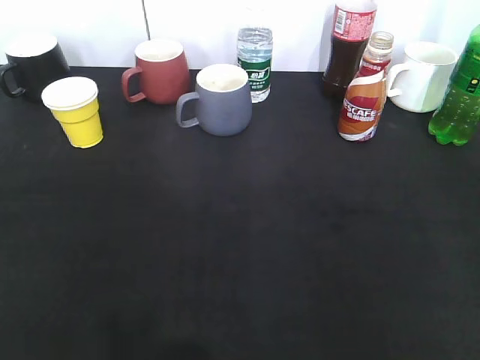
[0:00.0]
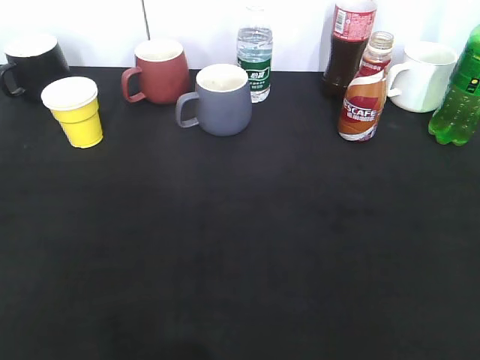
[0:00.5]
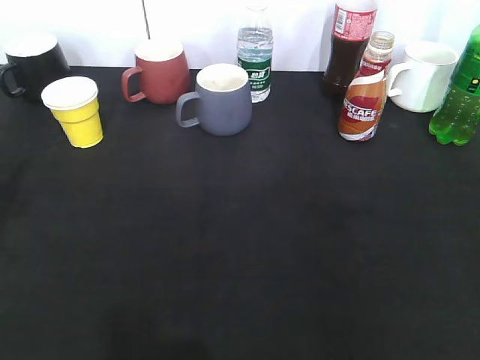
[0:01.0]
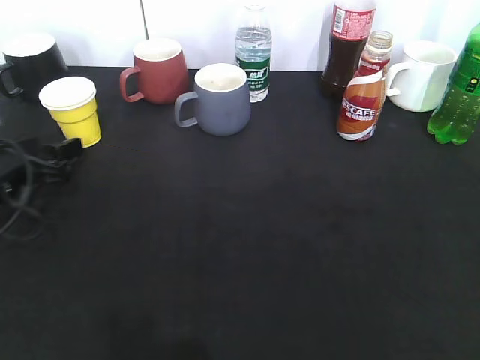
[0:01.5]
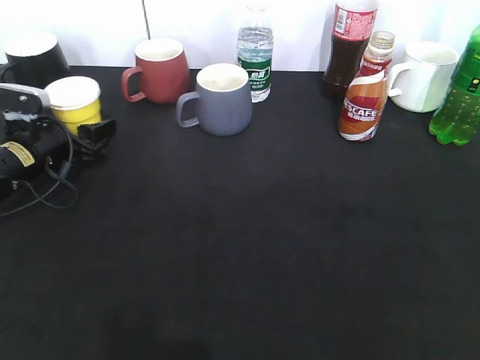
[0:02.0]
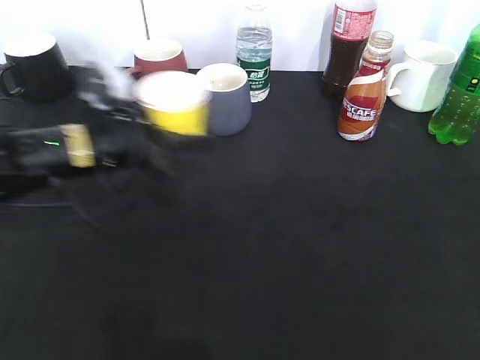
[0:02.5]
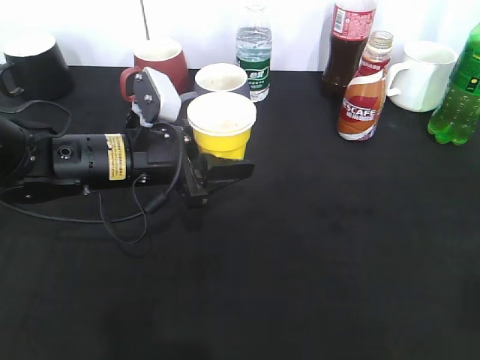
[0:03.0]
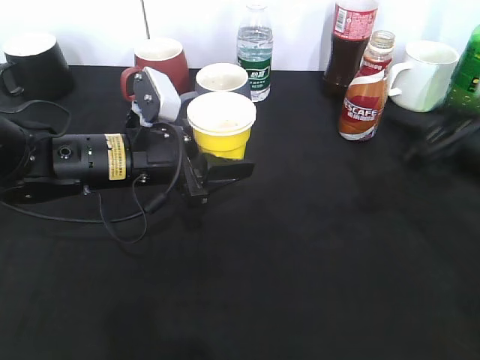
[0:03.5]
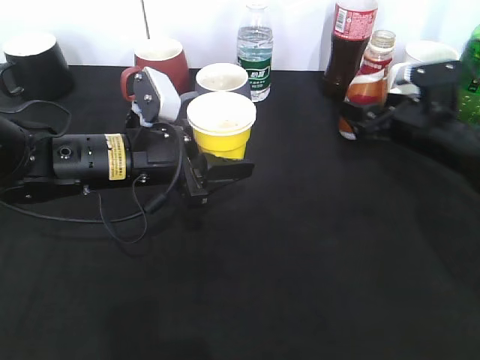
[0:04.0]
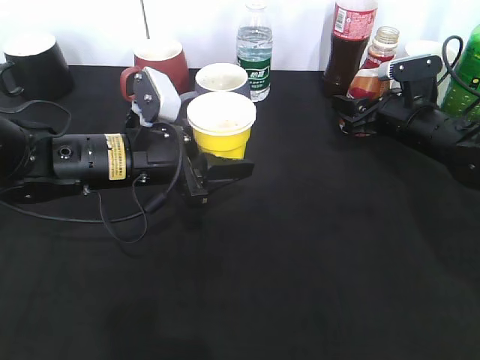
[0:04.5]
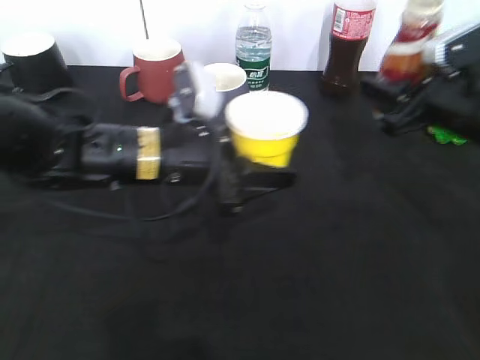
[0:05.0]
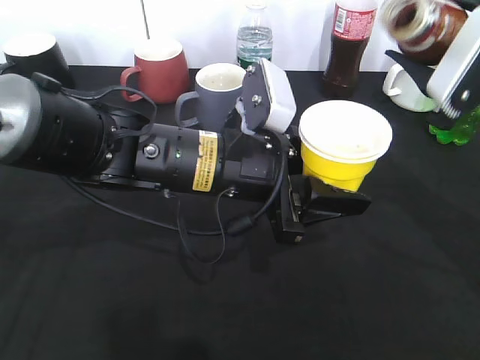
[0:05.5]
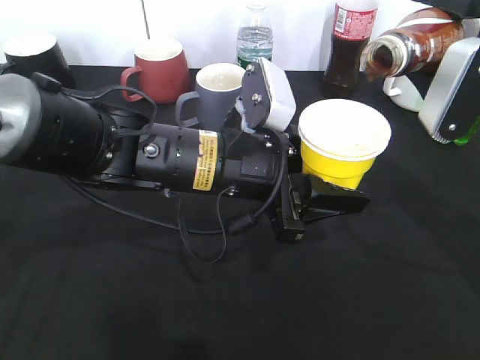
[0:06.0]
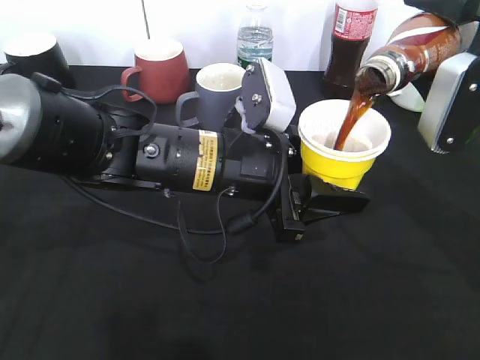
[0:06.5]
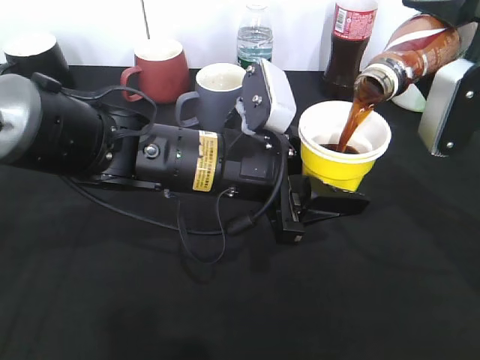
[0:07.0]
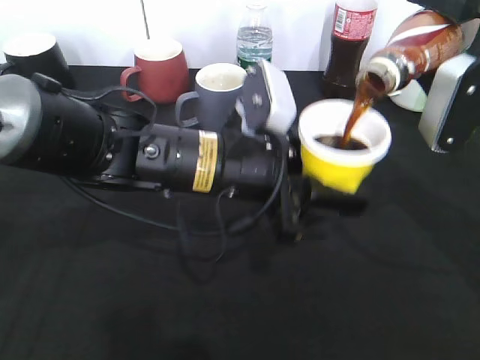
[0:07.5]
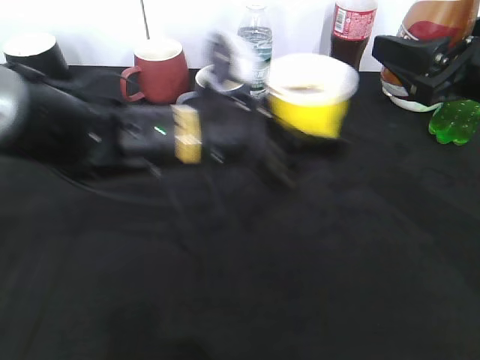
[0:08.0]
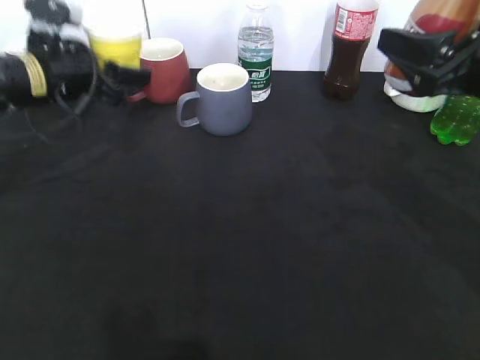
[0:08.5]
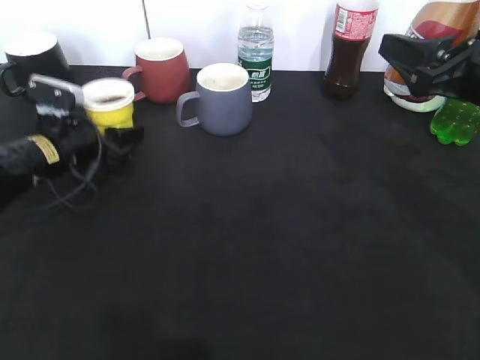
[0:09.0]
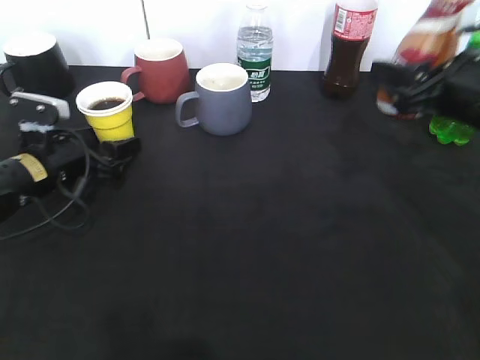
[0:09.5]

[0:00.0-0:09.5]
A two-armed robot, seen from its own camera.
Step, 0:00.0 to 0:02.0: Grasp the yellow paper cup with left gripper.
Step, 0:03.0 to 0:04.5: Grasp the bottle with coffee with right gripper.
Step, 0:05.0 to 0:07.5: Pour the coffee from bottle to cup with right gripper.
0:00.0 to 0:02.0: The left gripper shifts roughly 40 cm forward and downward, and opens up.
0:02.0 to 0:04.0: The right gripper shifts approximately 40 cm forward and downward, and opens. Meanwhile the left gripper travels to the right and backward by roughly 15 cm.
0:04.0 to 0:05.5: The left gripper goes approximately 10 cm to the right and backward, while the right gripper goes some 20 cm upward and backward, and closes its fingers.
0:07.5 to 0:09.5: The left gripper heads to the left, covering about 25 cm, and opens its fingers; the right gripper moves downward, approximately 5 cm.

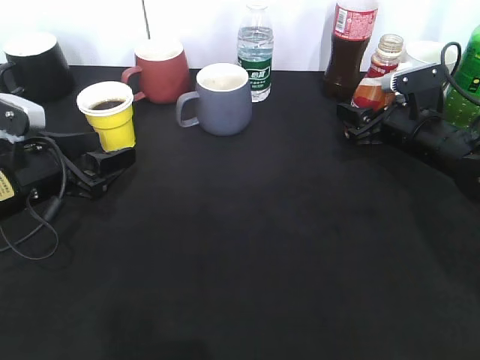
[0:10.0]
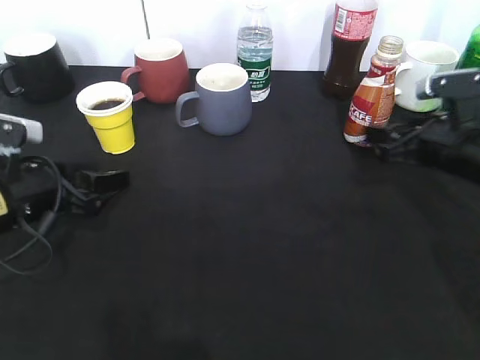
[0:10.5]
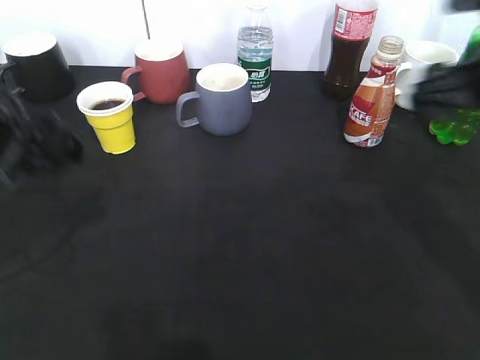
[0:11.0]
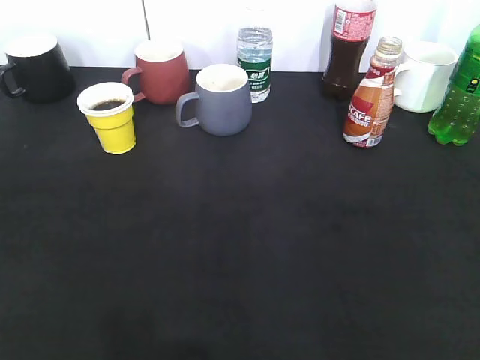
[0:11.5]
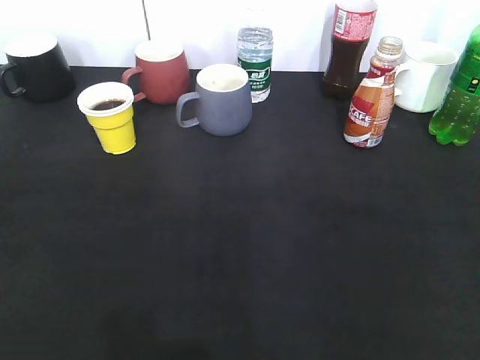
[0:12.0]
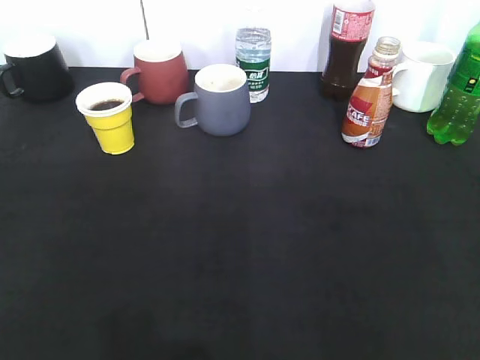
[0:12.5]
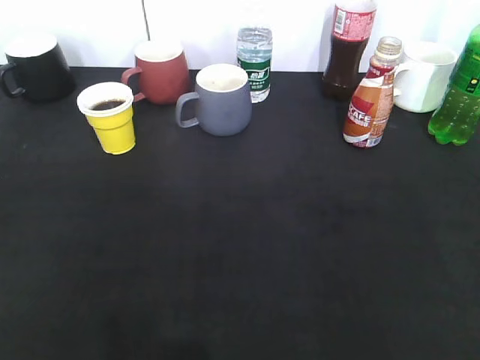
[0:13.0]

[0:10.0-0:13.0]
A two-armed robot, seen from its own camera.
Step, 0:10.0 to 0:10.5: Place the coffee bottle on the table with right gripper.
0:10.0 to 0:11.5: The grippers both shift backward and upward by roughly 40 cm. The right gripper opens up.

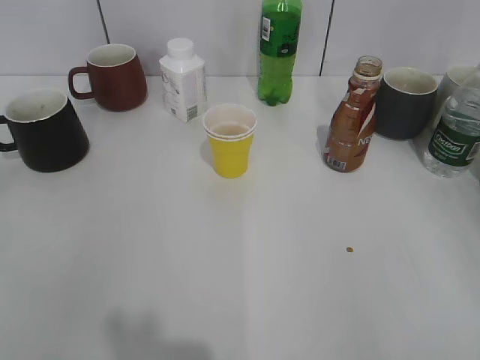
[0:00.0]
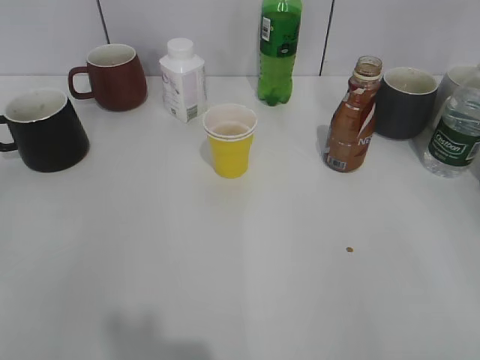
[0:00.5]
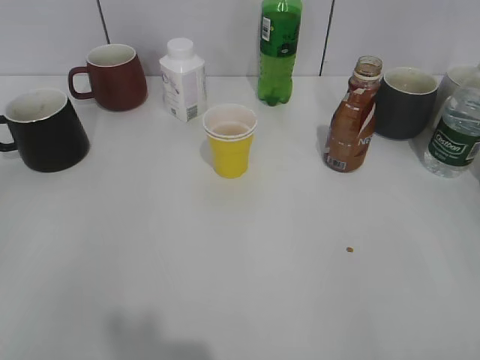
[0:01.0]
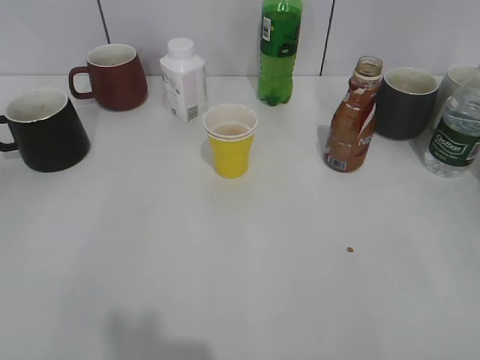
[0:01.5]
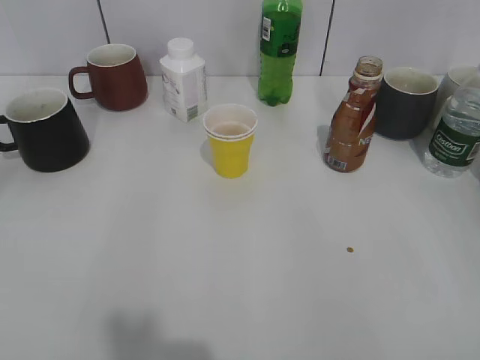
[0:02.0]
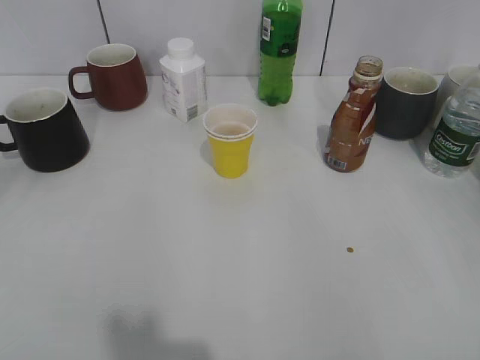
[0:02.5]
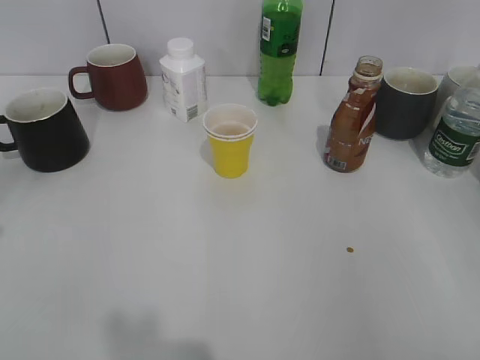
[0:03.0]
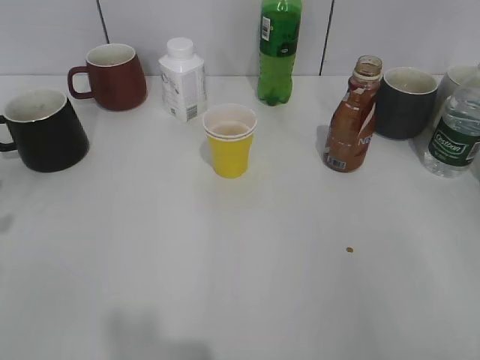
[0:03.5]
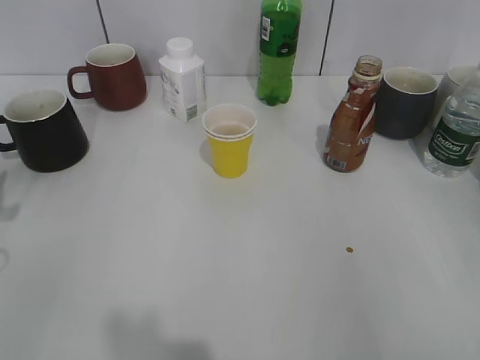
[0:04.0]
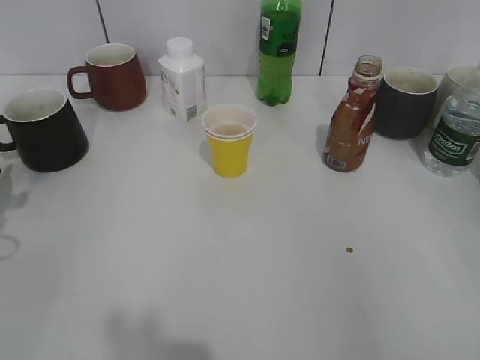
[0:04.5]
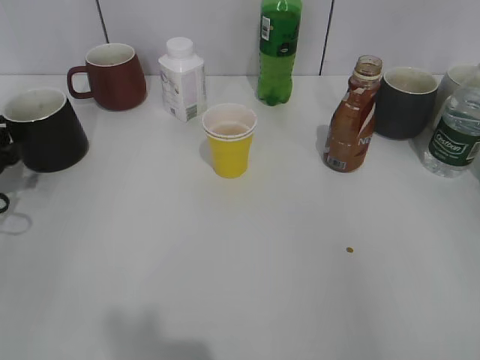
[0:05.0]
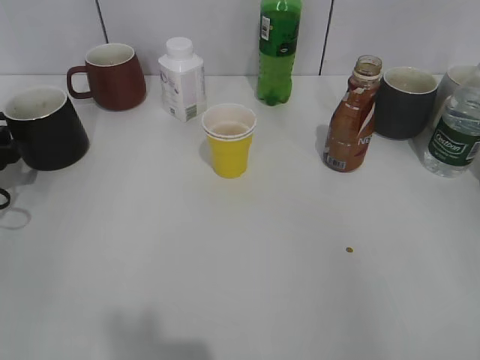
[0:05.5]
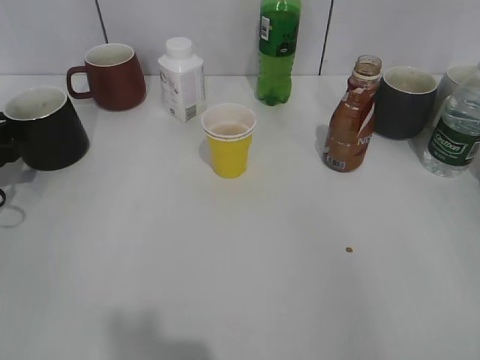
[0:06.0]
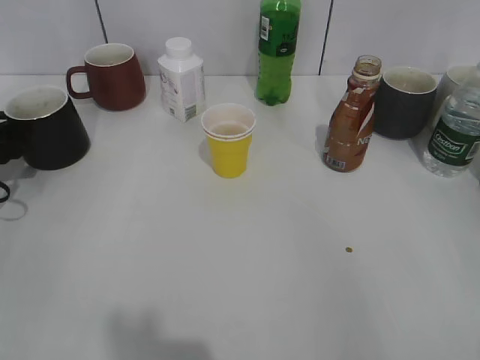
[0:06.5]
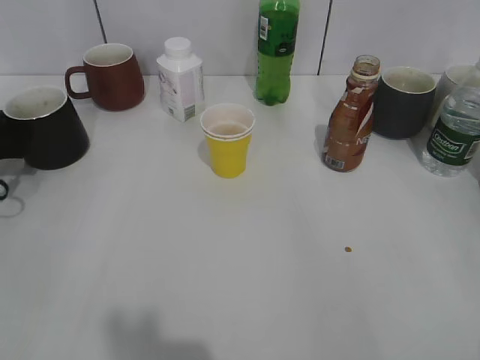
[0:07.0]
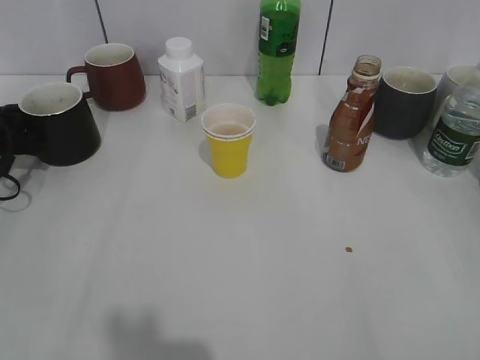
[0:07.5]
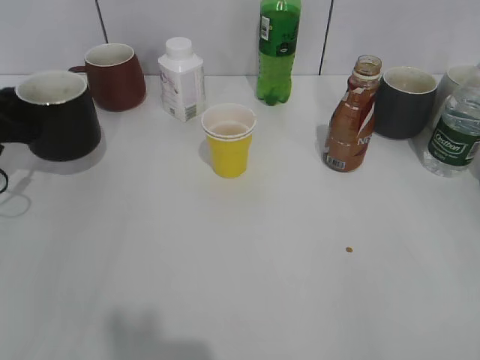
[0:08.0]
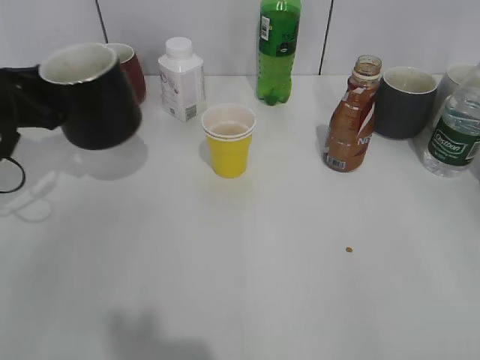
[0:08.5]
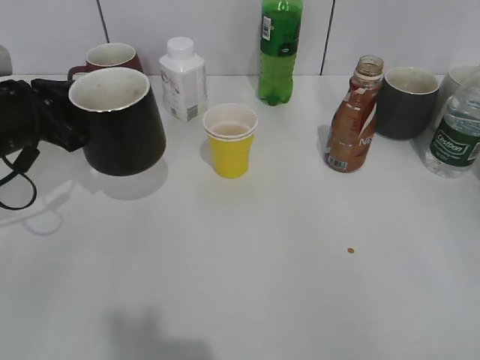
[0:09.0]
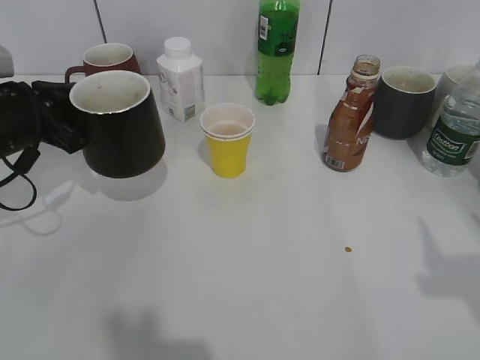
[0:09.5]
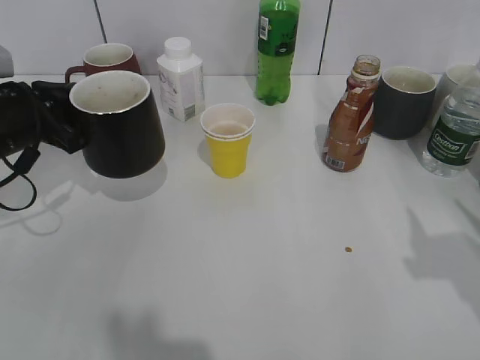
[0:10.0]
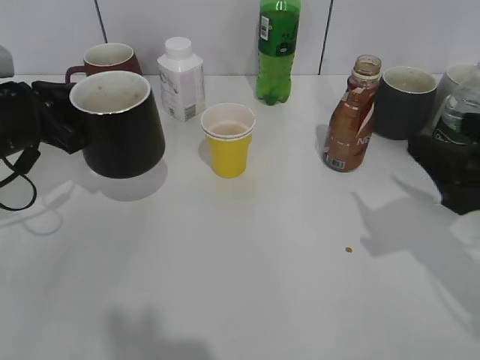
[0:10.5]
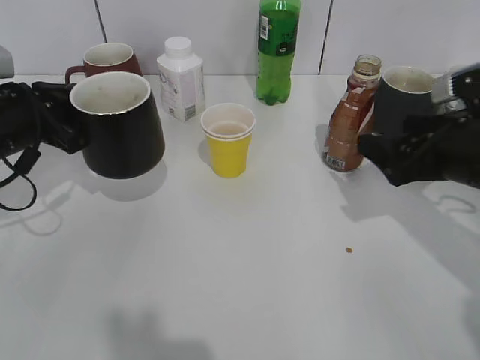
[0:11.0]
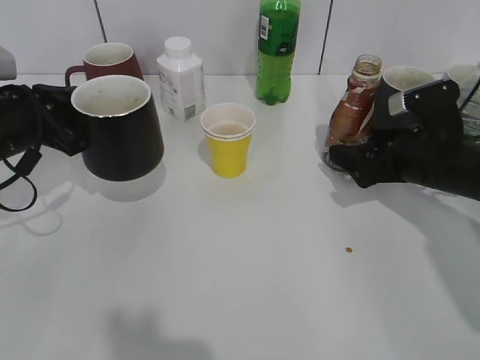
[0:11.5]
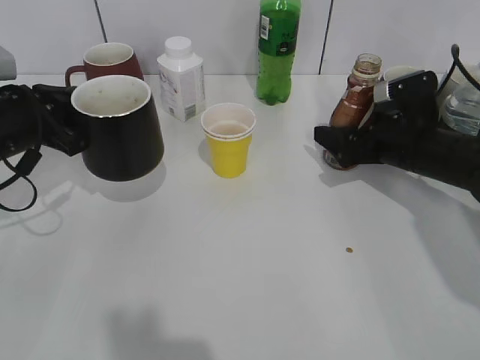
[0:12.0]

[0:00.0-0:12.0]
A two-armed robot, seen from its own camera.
Step, 0:08.0 to 0:09.0: Lift the black cup with left gripper.
0:04.0 to 0:06.0: The left gripper goes about 10 cm forward and downward.
0:06.0 to 0:08.0: The left gripper closes up.
0:08.0 to 0:10.0: The left gripper is displaced to the right by about 5 cm. Meanwhile the right gripper heads forward, covering about 15 cm.
0:10.0 to 0:12.0: The right gripper heads forward and downward, covering some 25 cm, and opens up.

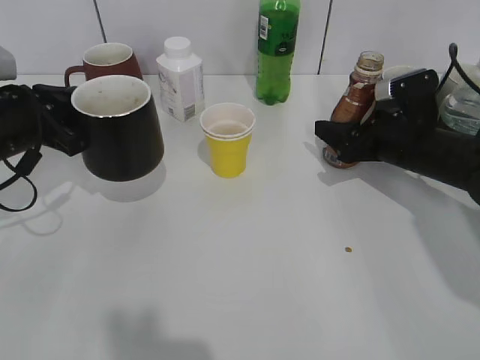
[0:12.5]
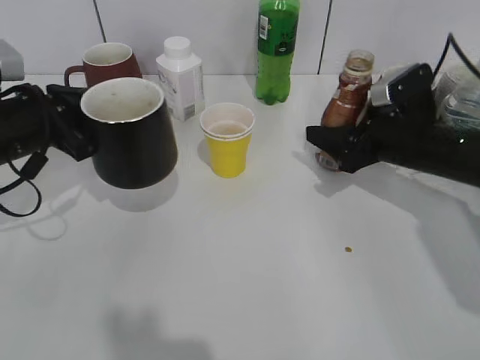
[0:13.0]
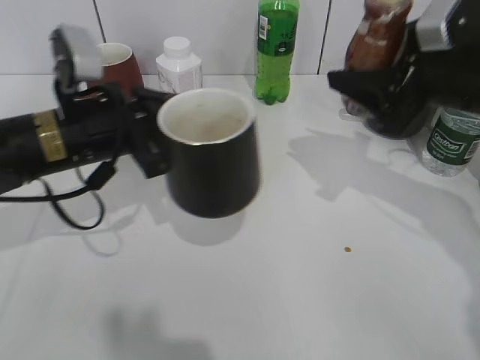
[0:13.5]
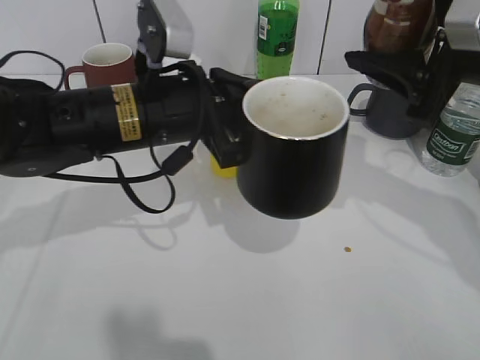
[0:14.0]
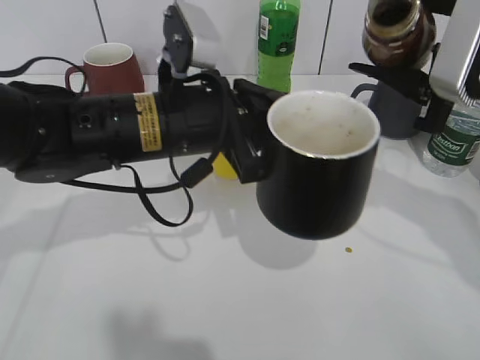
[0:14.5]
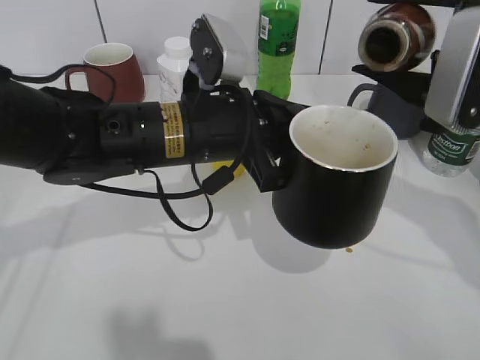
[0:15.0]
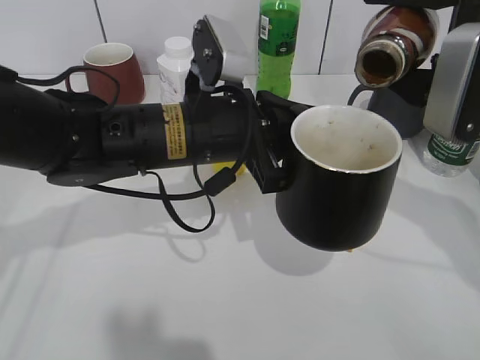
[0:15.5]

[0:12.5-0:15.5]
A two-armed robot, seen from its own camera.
0:12.5 to 0:14.0: The left gripper travels to the right by about 15 cm. Meanwhile the right gripper goes roughly 20 cm upward and backward.
